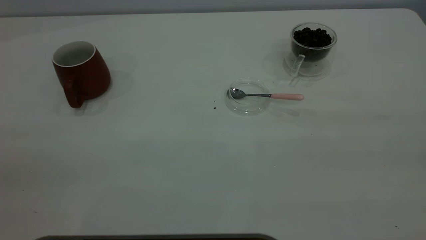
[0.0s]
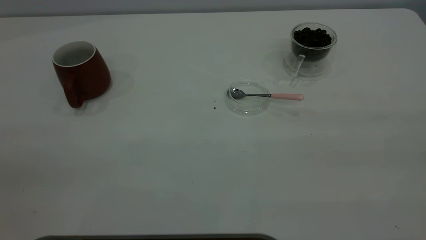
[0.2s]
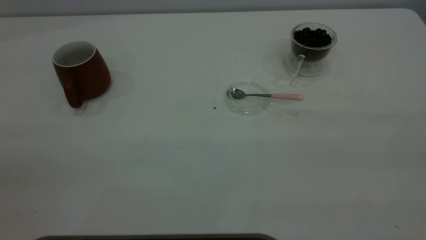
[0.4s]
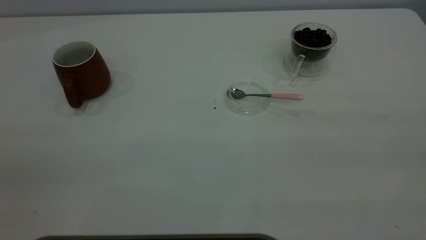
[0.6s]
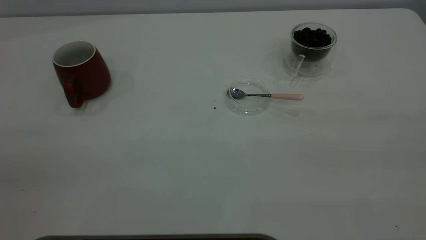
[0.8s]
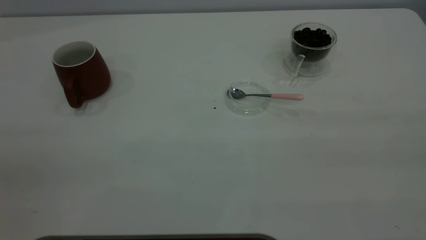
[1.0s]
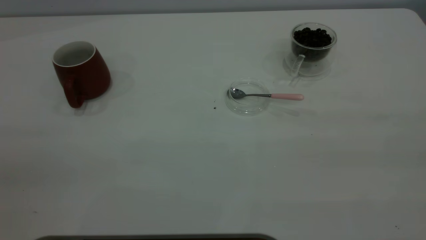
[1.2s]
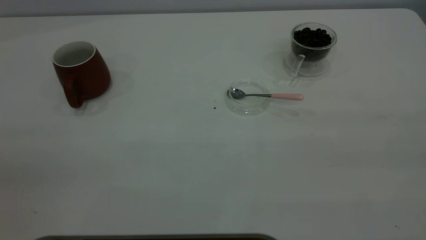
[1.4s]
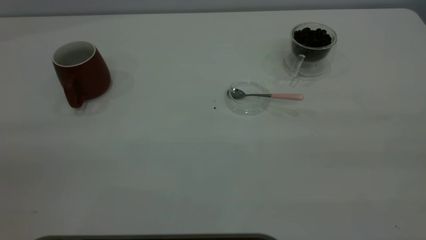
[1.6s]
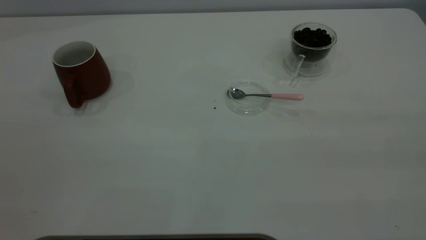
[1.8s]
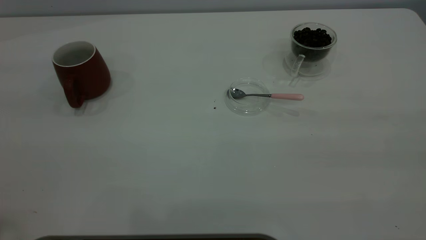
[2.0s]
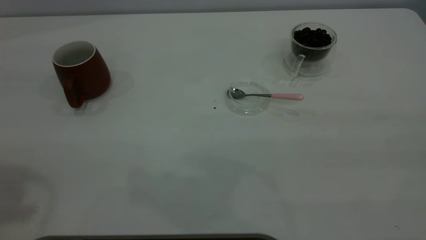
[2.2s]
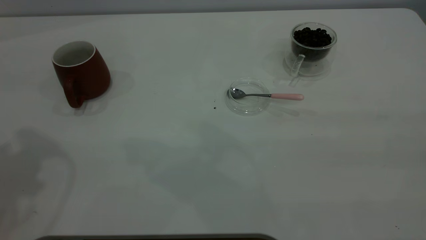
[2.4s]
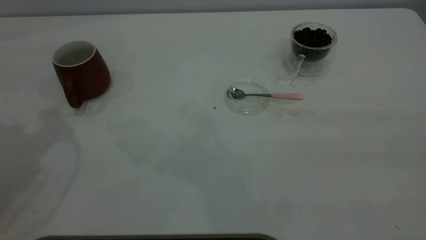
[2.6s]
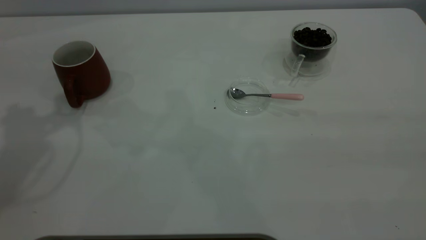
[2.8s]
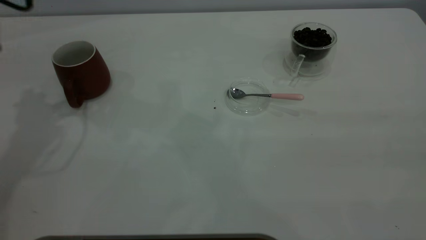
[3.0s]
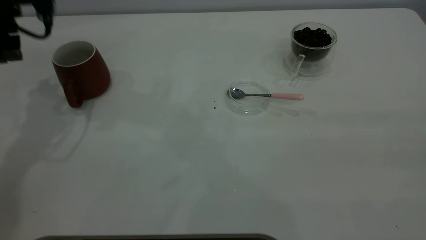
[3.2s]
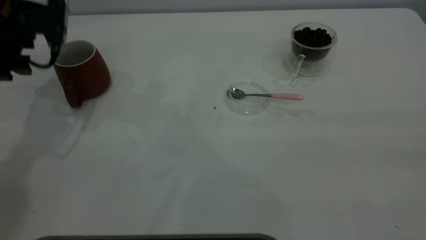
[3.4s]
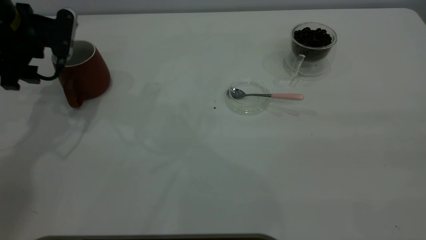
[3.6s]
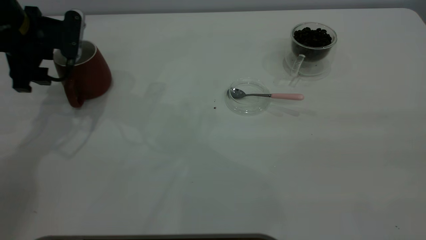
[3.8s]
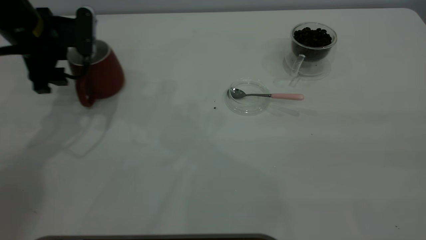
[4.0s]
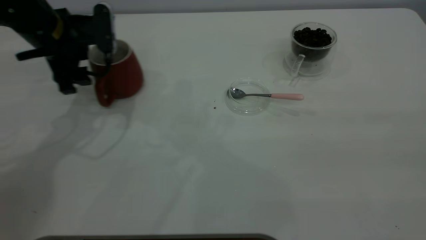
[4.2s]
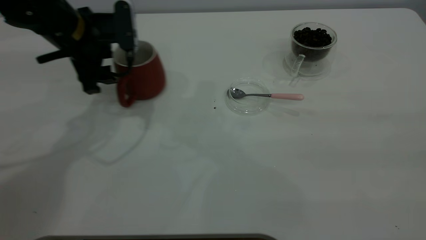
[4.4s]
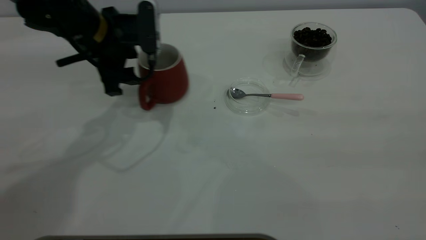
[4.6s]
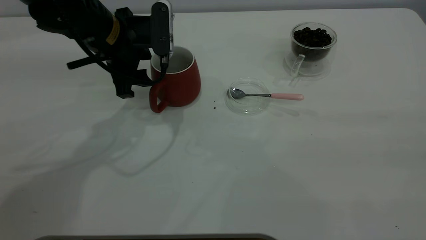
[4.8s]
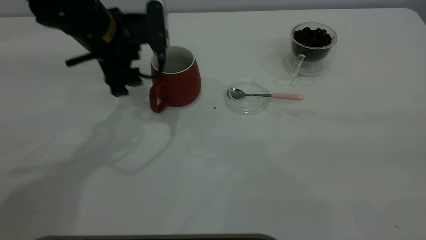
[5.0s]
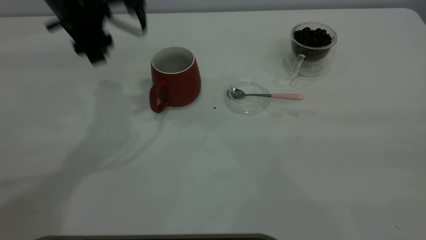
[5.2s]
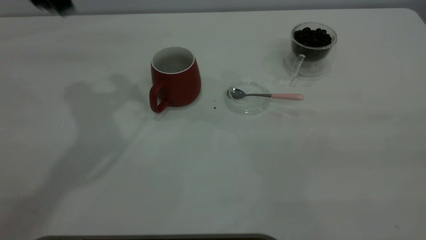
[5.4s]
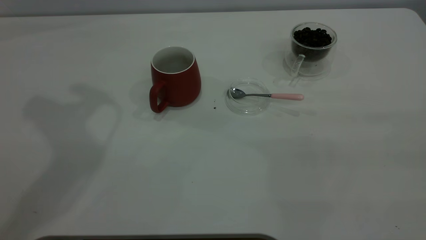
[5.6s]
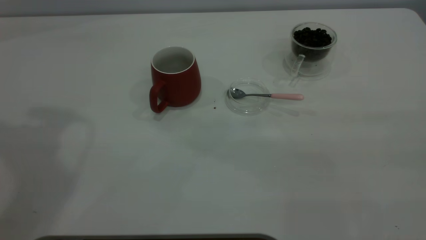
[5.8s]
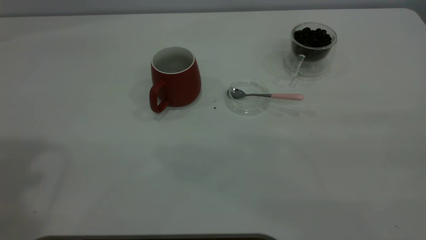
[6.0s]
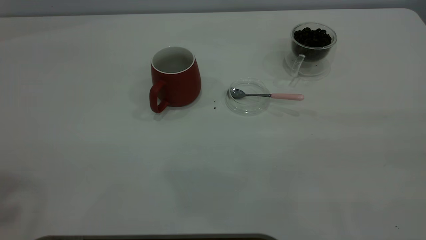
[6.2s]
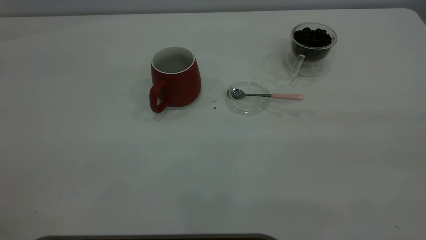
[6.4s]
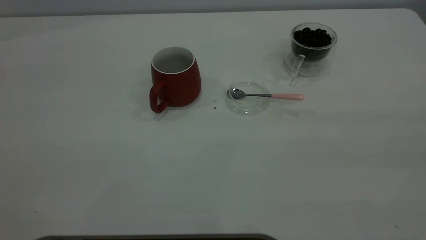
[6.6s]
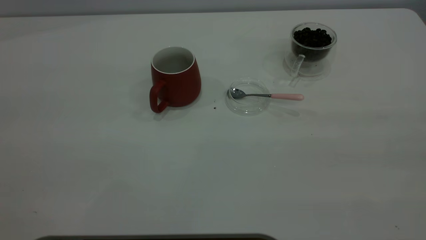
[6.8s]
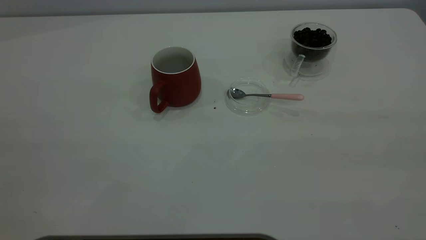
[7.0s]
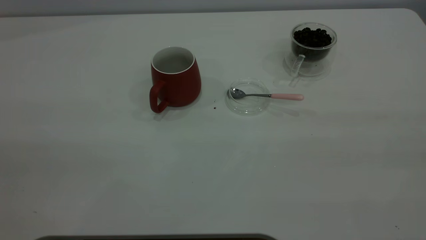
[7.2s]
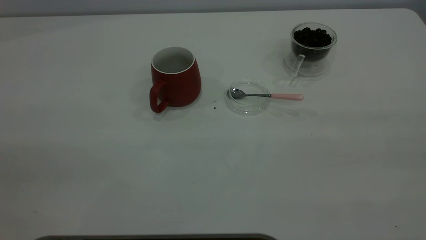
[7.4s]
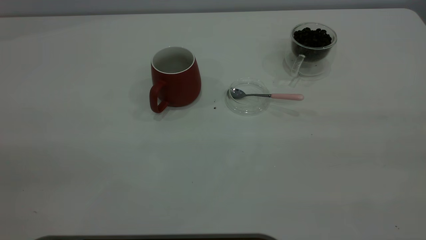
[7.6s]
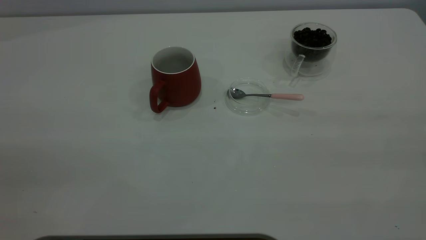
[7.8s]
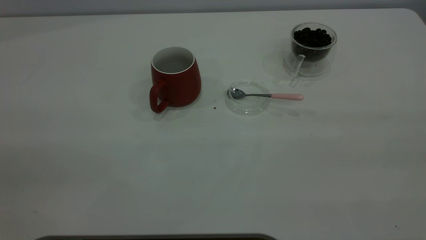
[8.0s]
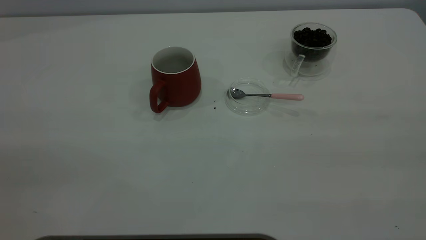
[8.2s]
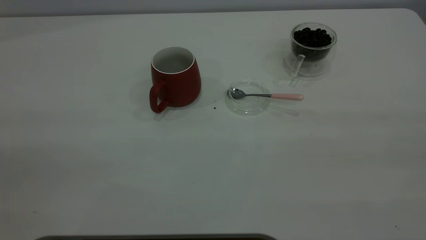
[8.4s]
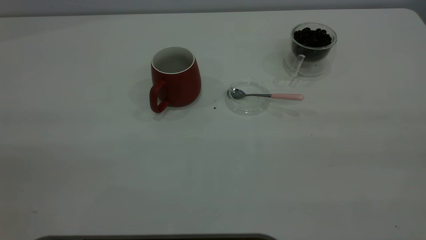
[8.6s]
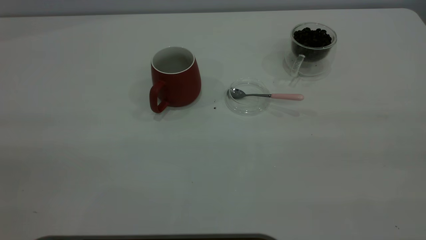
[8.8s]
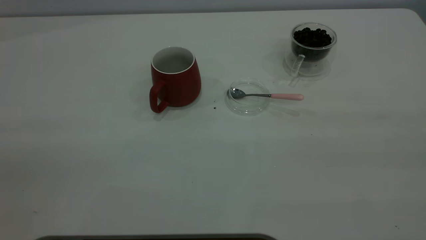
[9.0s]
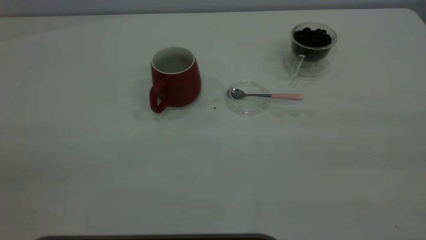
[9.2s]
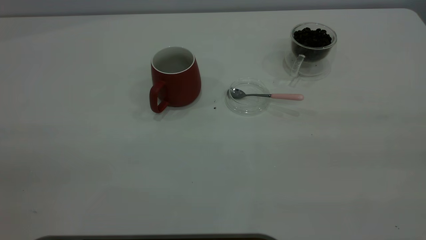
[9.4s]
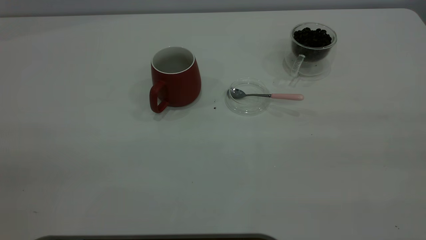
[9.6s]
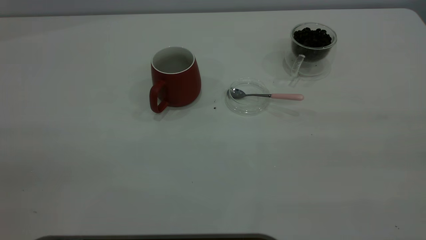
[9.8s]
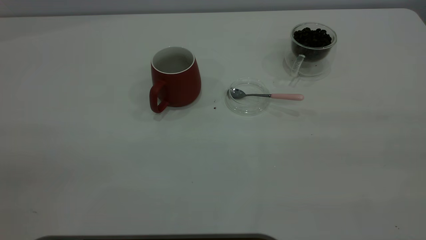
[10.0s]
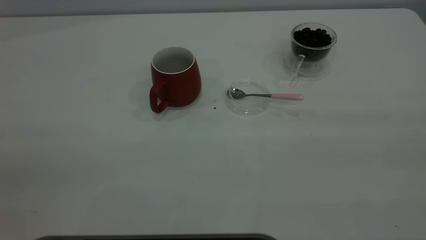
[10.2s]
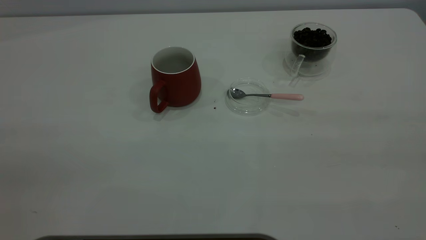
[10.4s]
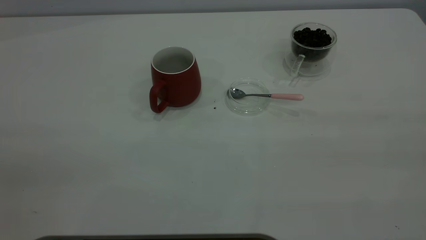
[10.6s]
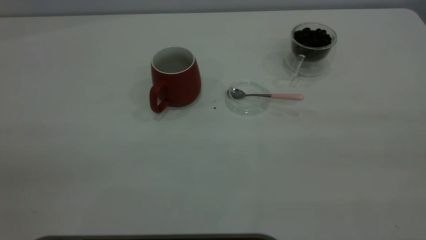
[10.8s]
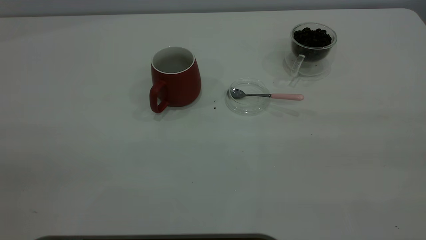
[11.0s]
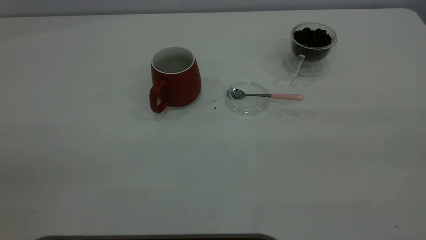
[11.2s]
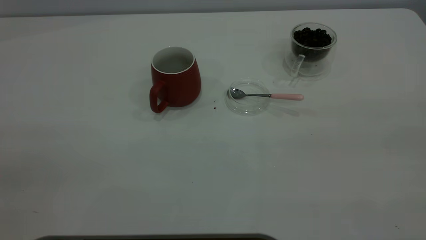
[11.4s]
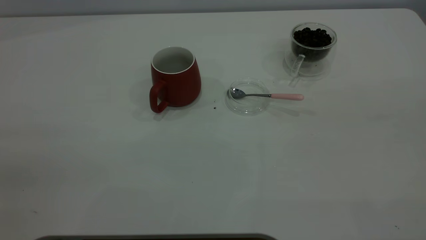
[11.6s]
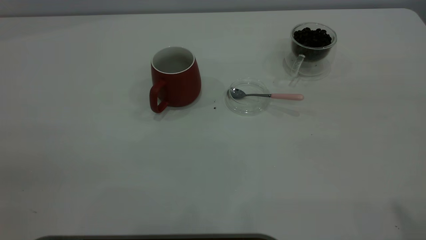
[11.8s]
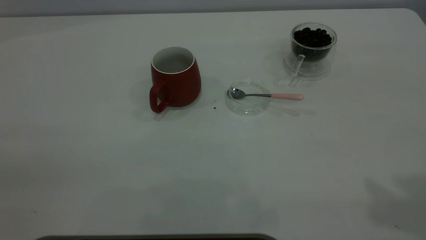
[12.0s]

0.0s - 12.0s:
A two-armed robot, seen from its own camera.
Task of the whole recording: the left gripper place the red cup in the center of the table, the right gripper take the pink spoon from the cup lid and scoop out the coffee beans from the coffee cup and put them into the red cup, the right gripper put the spoon back into the cup lid.
Step, 0.0s - 5.0s: Move the cup to the center of view.
3.0s - 4.4s: The left gripper shifts roughly 15 cm to the right and downward.
4.4s - 6.0s: The left gripper heads upward and backward, covering some 40 cm.
9.0s - 10.4s: Both grippers stay about where they are.

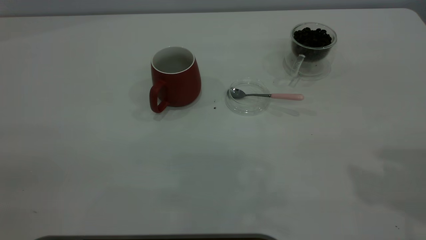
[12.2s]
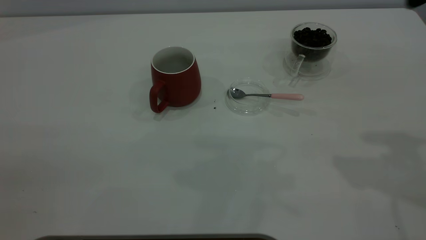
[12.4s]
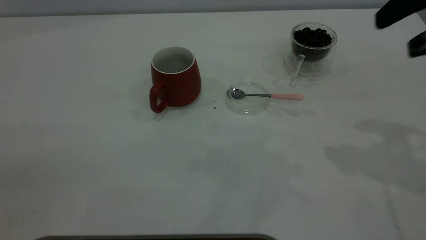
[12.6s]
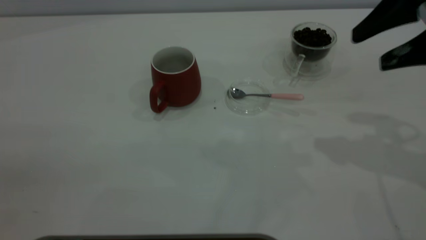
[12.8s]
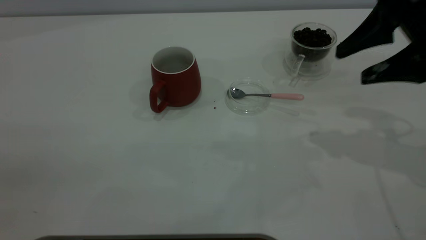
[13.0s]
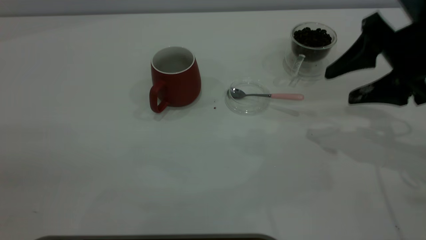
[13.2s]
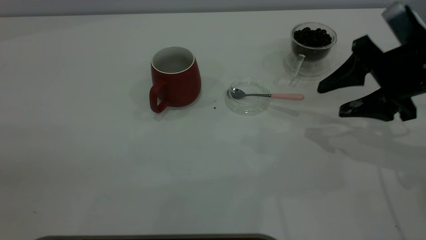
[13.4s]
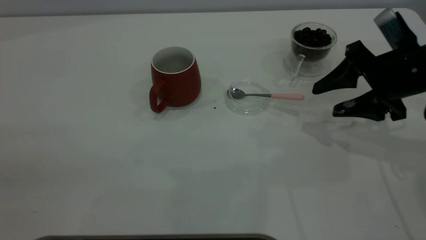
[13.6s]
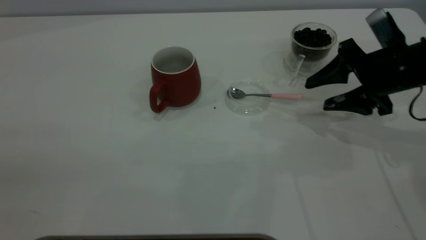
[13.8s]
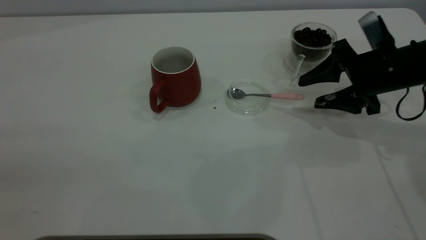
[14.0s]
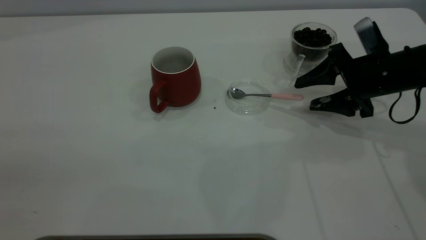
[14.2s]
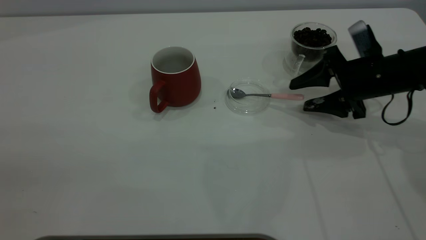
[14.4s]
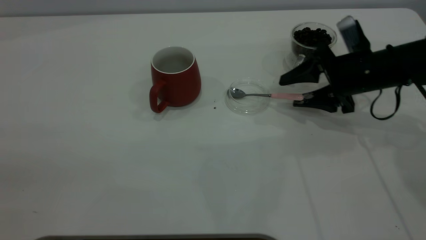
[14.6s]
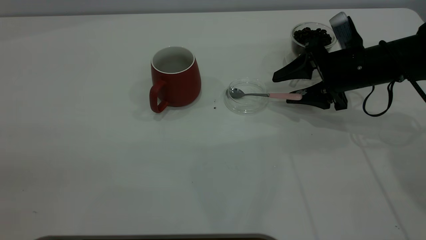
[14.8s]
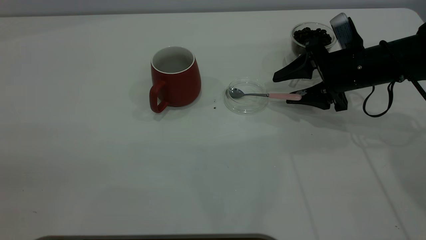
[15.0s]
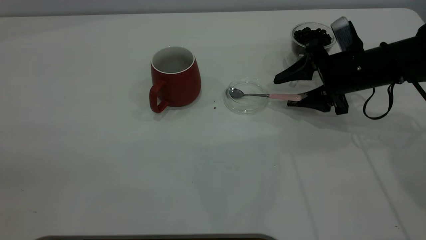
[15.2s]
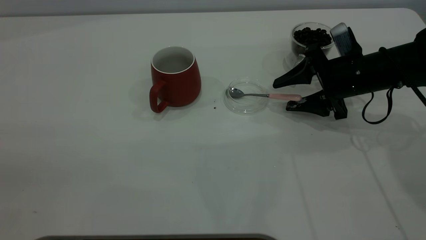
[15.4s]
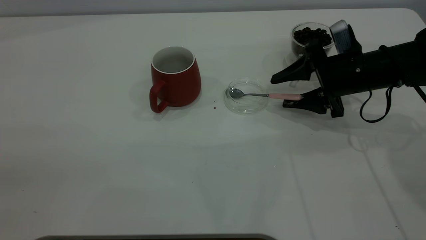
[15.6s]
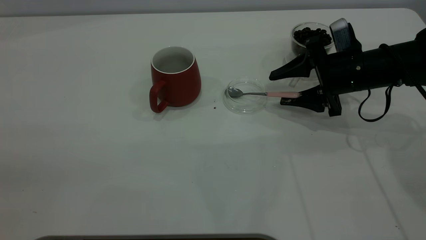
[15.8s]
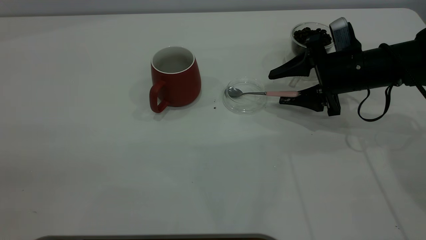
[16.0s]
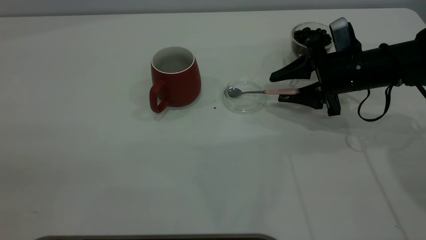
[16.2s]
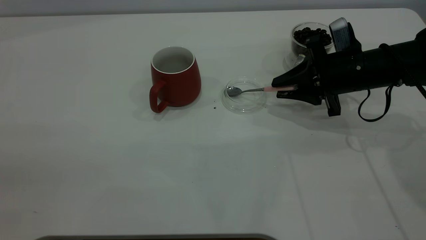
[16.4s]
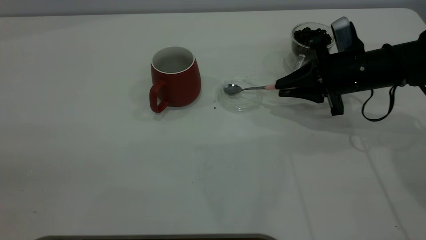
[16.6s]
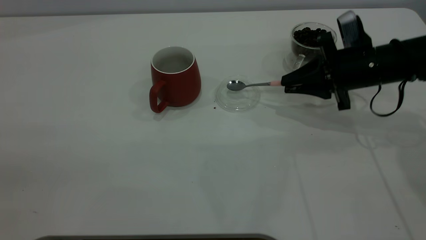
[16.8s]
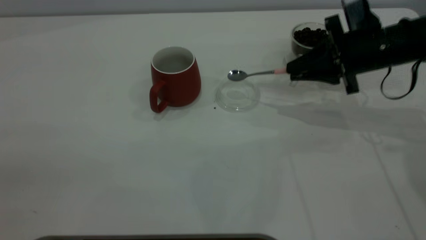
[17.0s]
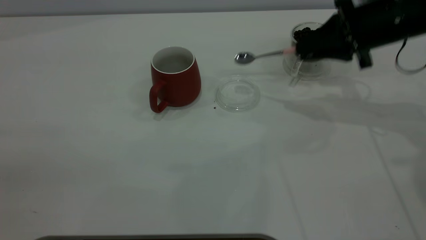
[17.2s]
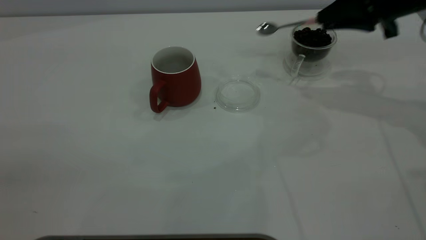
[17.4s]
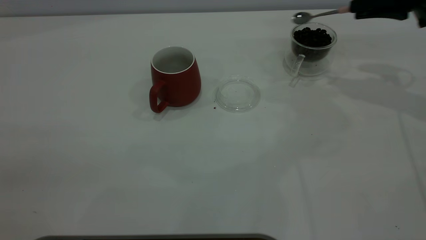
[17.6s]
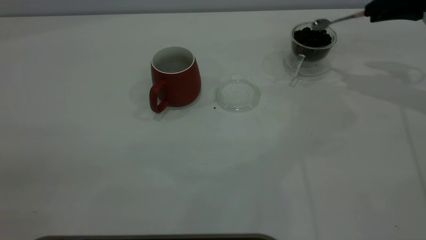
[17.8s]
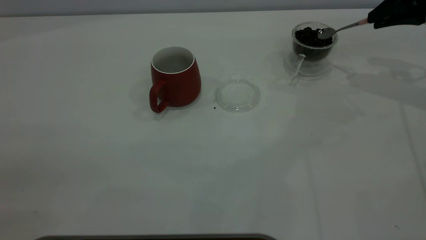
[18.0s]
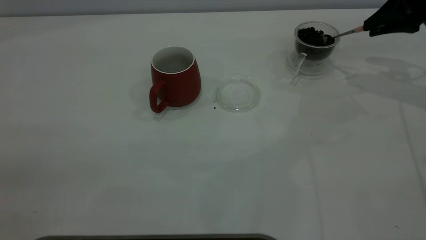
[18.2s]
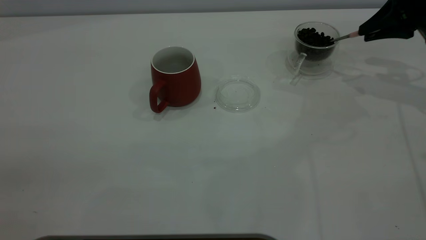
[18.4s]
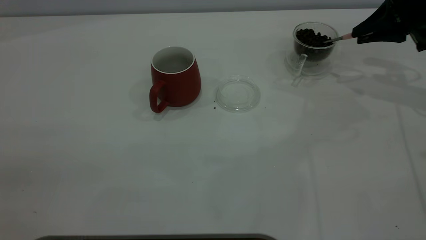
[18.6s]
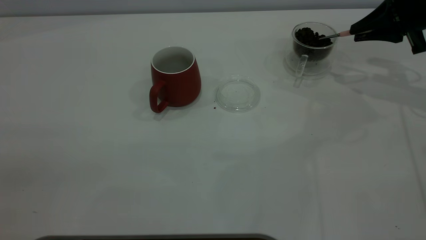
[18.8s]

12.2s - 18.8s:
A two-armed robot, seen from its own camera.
Task of the whole recording: the left gripper place the red cup in the center of the table, the right gripper take the pink spoon from the cup lid and scoop out the coffee beans from the coffee cup and put them into the red cup, the right gripper put the spoon back into the cup lid.
Step, 12.2s - 17.0s: Pick up the spoon.
12.2s - 13.8s: The right gripper travels downward and forward by some 30 cm.
13.8s - 15.4s: The right gripper moves some 5 cm.
15.4s - 17.2s: The right gripper travels upward by roughly 10 cm, and closes up.
17.2s - 18.8s: The right gripper goes approximately 10 cm to the right.
